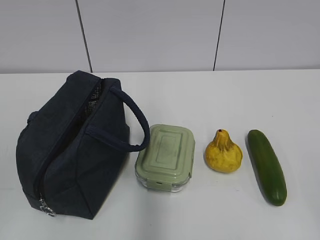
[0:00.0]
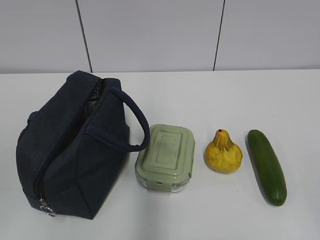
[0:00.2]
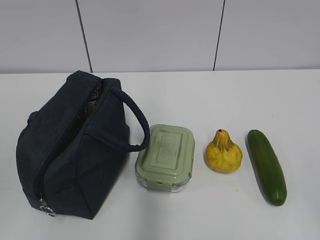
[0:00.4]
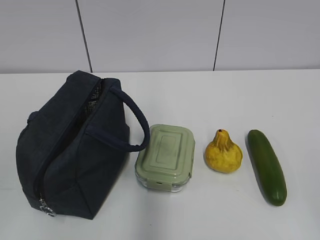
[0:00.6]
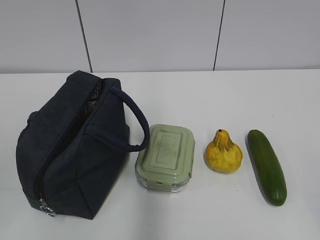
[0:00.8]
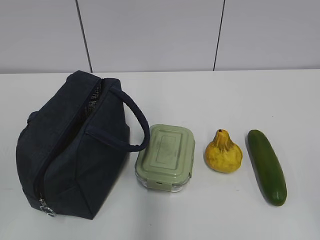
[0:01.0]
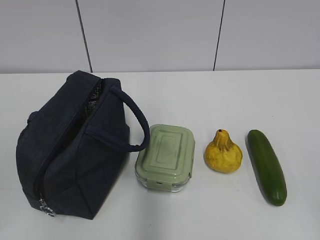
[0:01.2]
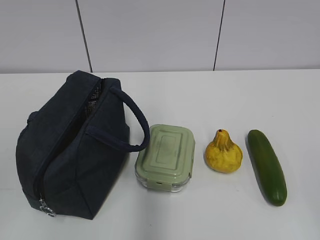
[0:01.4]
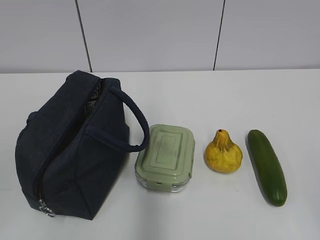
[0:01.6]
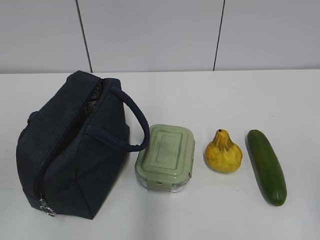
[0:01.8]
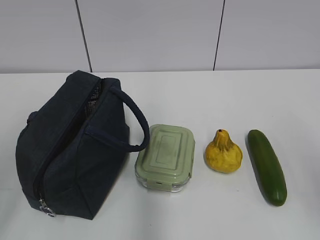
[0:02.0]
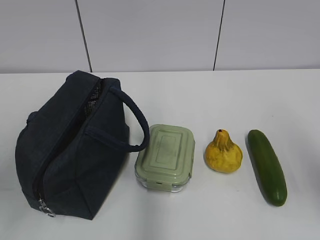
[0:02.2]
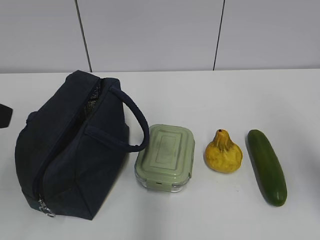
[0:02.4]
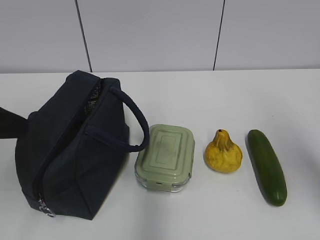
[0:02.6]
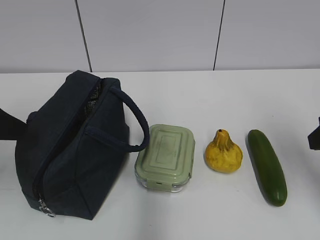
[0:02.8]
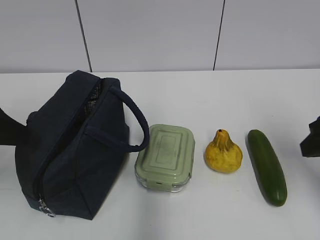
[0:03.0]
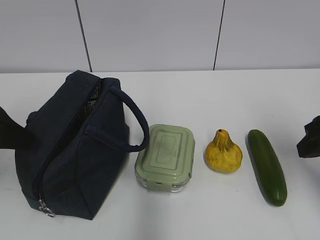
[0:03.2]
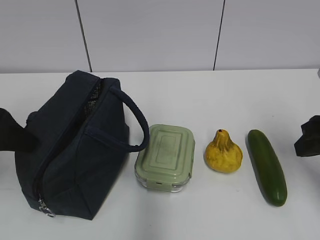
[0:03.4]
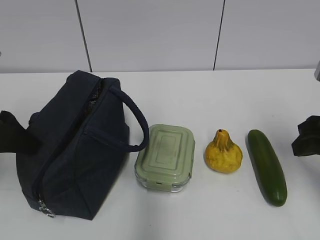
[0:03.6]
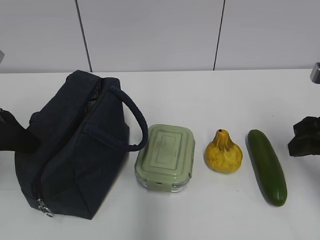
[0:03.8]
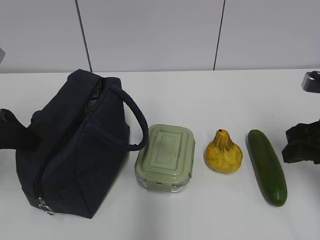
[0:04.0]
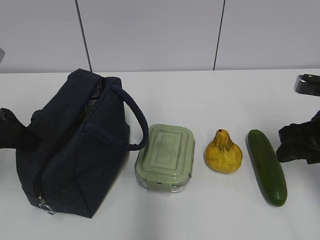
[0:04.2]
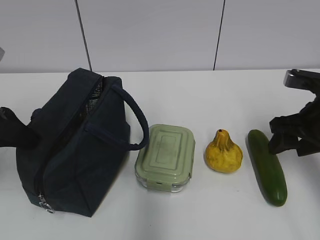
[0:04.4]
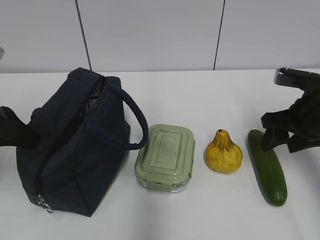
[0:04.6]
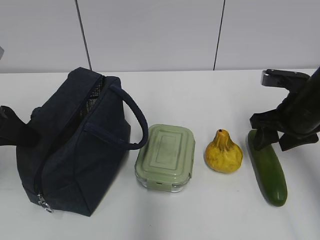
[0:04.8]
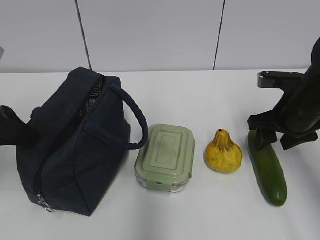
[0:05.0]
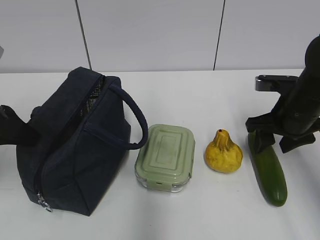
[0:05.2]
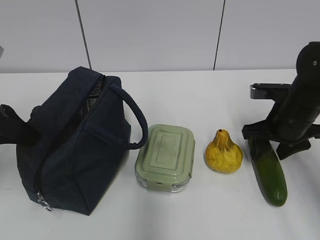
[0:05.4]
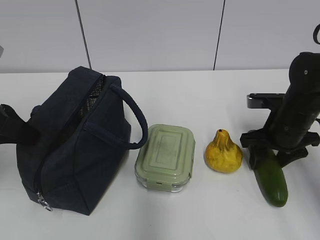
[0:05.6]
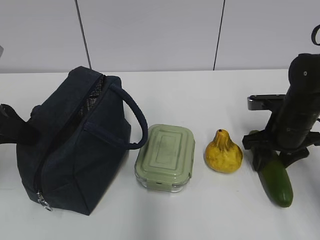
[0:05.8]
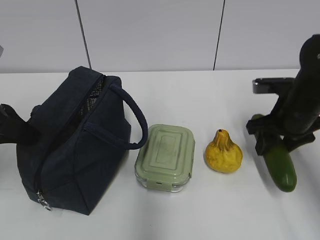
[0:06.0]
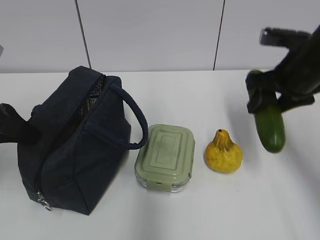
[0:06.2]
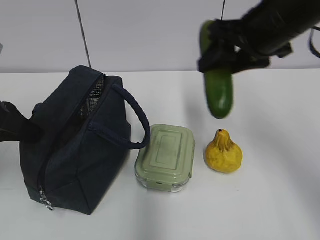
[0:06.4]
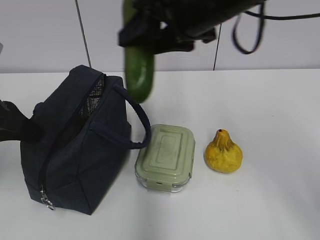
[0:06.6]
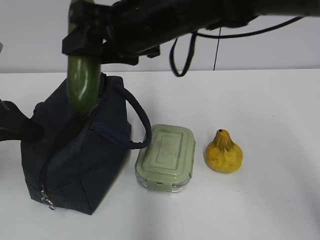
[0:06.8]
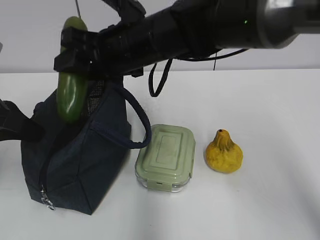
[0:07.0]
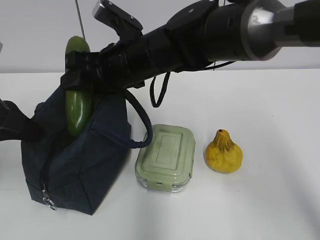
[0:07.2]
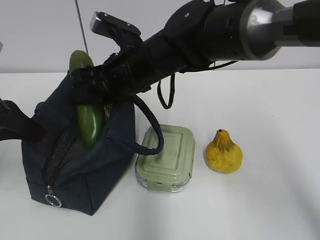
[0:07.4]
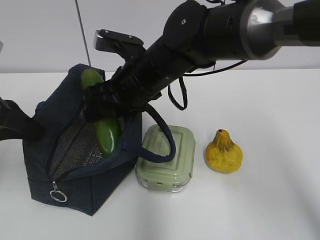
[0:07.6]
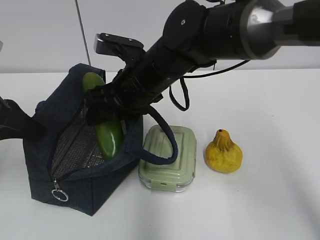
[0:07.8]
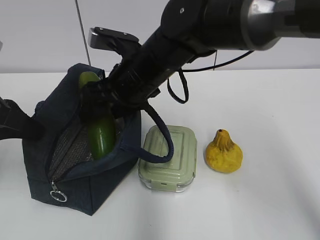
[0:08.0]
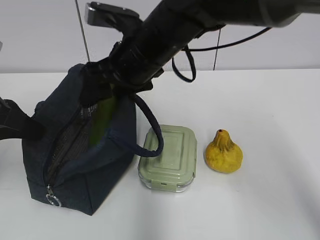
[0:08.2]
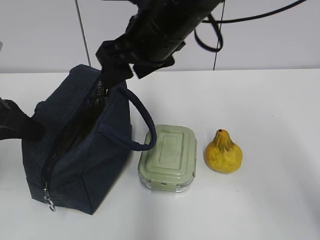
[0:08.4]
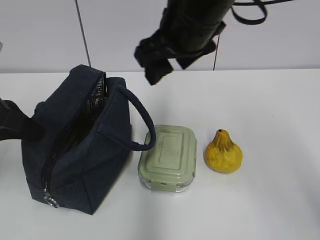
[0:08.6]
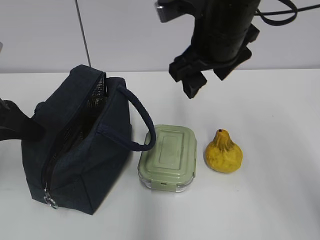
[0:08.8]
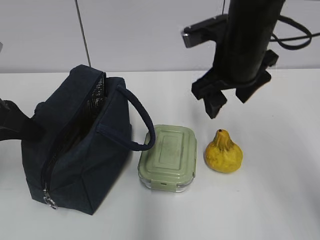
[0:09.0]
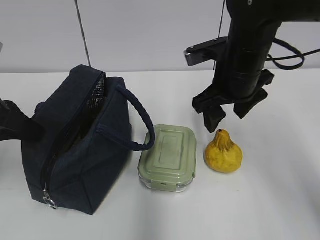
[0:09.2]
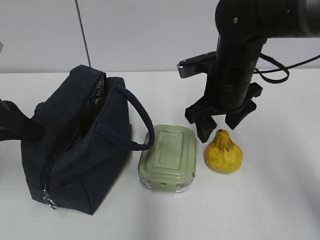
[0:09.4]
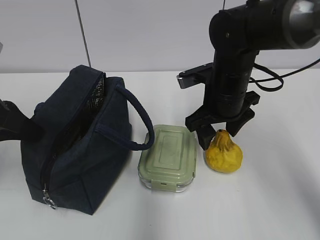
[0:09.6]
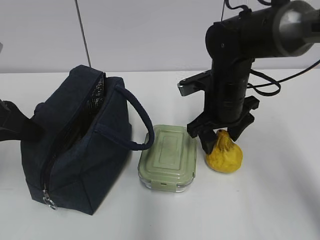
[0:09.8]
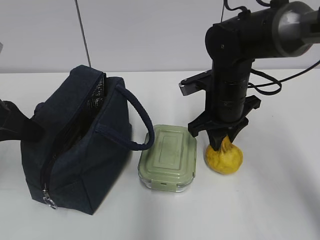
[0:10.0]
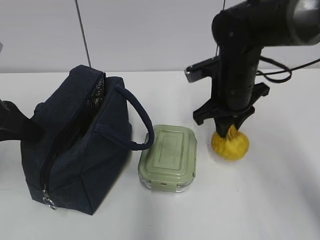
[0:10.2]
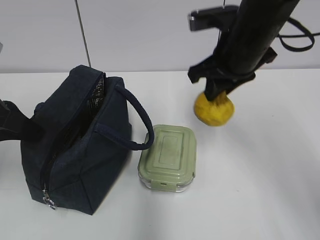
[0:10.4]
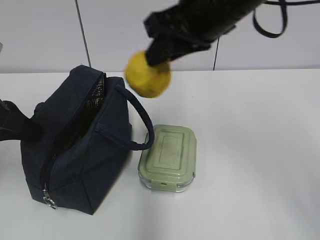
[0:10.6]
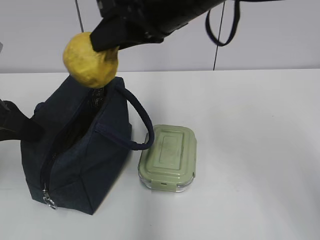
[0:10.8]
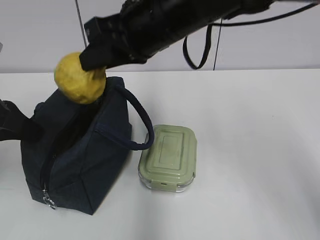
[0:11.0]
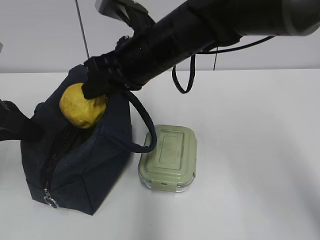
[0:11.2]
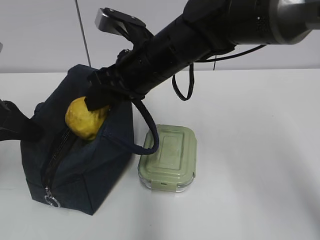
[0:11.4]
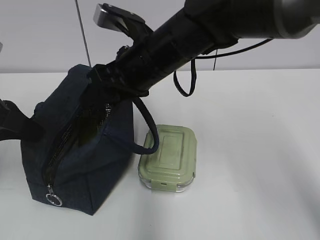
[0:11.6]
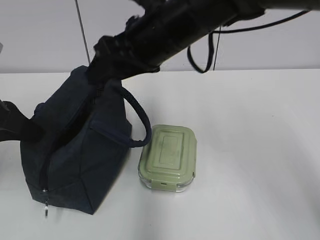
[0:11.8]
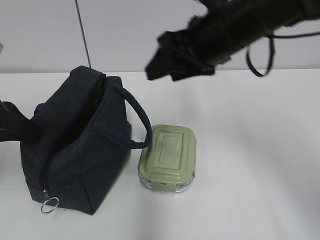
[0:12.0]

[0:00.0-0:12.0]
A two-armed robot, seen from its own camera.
0:01.6 to 0:03.0: The two grippers go approximately 20 cm forward.
0:03.0 to 0:04.4: The right gripper heads forward and downward, covering approximately 10 cm, while the left gripper closes its fingers.
0:06.0 to 0:07.6: The right gripper goes about 25 cm to the left.
0:07.6 to 0:09.0: The right gripper heads to the right, covering approximately 15 cm.
0:09.0 to 0:10.4: The right gripper goes downward and returns, roughly 10 cm each way, and closes up.
0:10.4 to 0:12.0: The right gripper travels to the left and back again, some 10 cm each way, and opens its fingers.

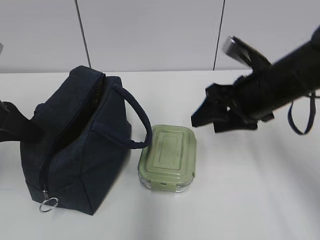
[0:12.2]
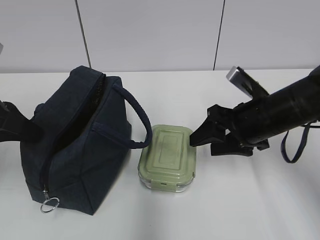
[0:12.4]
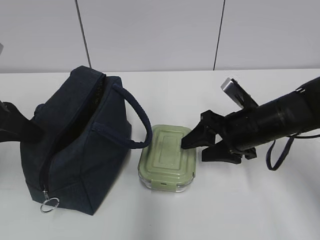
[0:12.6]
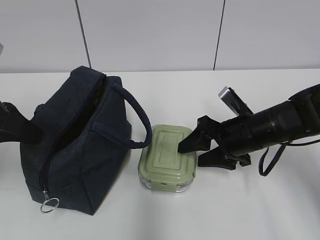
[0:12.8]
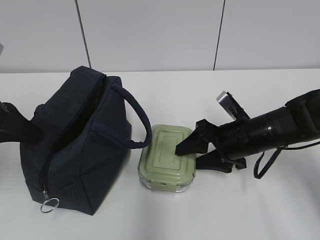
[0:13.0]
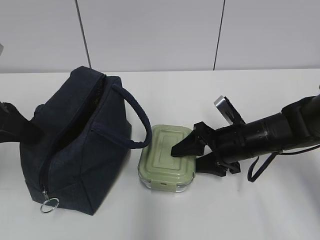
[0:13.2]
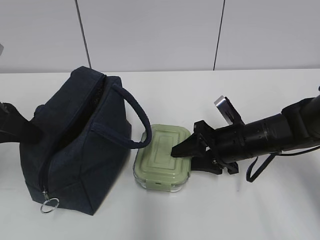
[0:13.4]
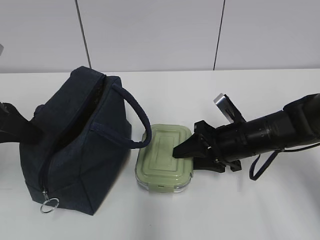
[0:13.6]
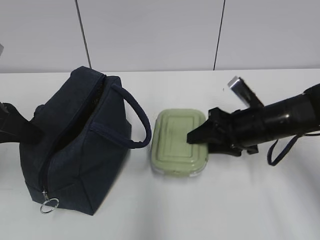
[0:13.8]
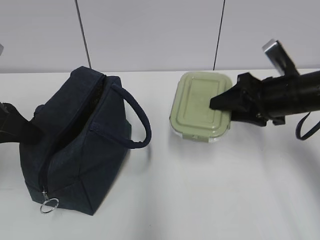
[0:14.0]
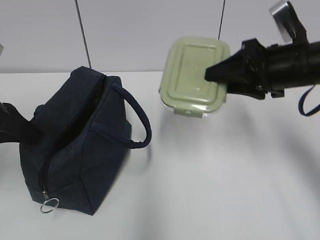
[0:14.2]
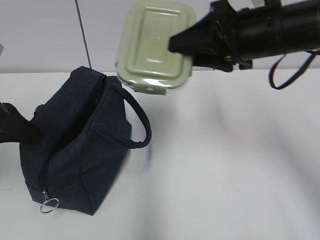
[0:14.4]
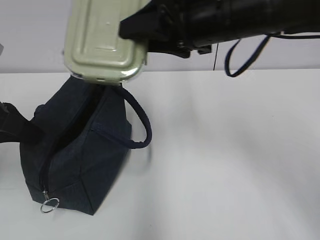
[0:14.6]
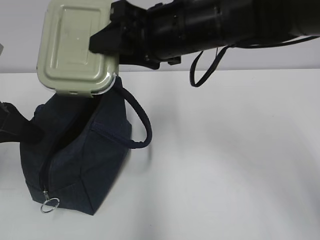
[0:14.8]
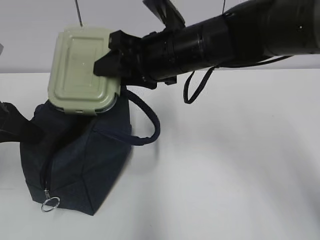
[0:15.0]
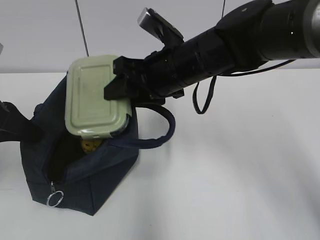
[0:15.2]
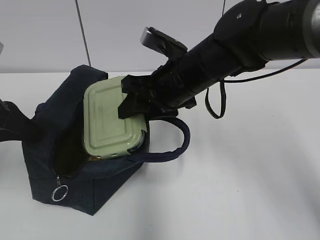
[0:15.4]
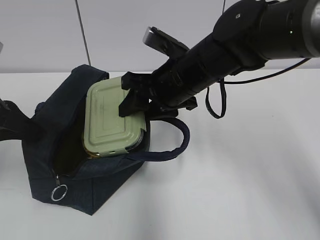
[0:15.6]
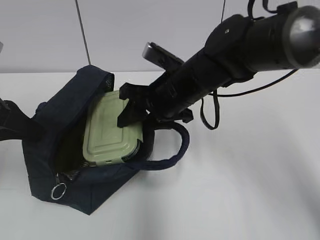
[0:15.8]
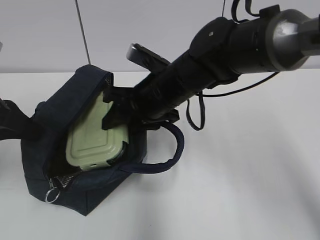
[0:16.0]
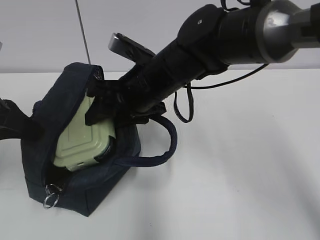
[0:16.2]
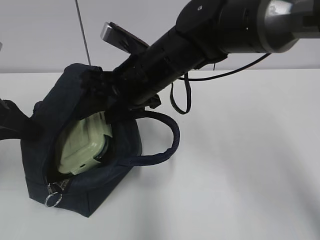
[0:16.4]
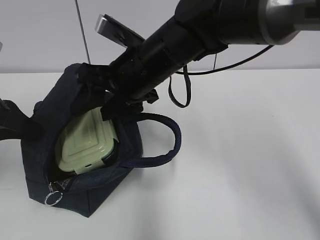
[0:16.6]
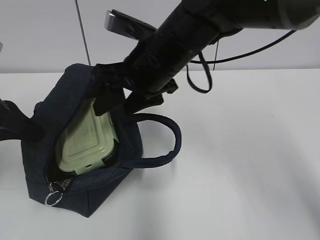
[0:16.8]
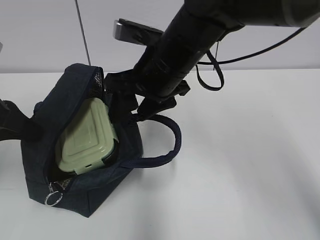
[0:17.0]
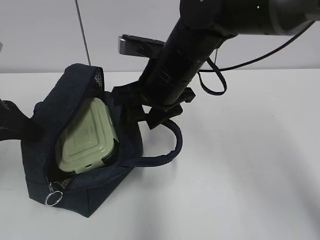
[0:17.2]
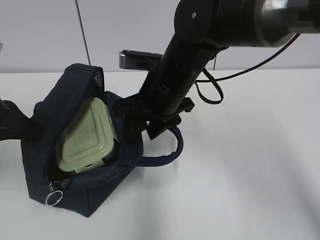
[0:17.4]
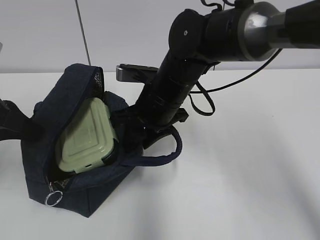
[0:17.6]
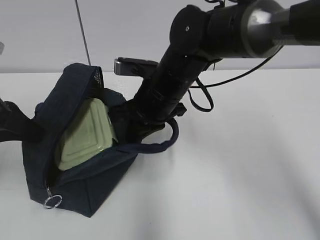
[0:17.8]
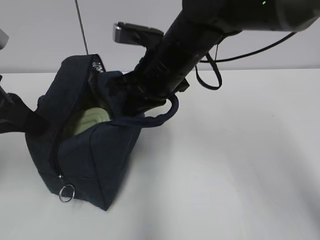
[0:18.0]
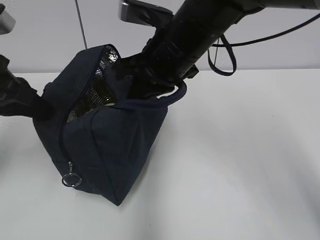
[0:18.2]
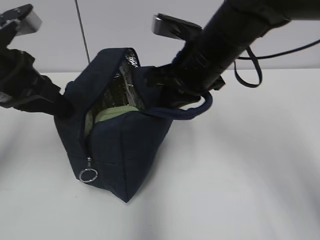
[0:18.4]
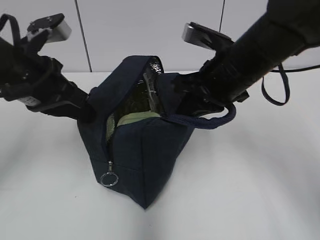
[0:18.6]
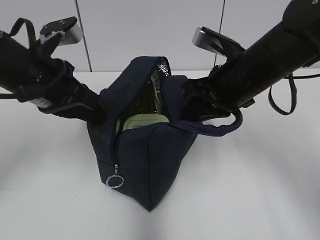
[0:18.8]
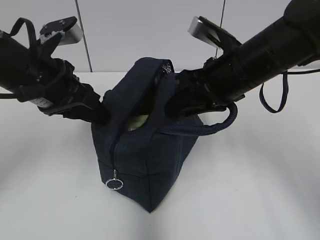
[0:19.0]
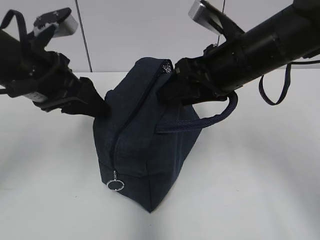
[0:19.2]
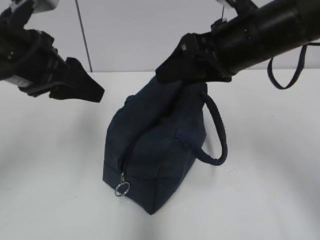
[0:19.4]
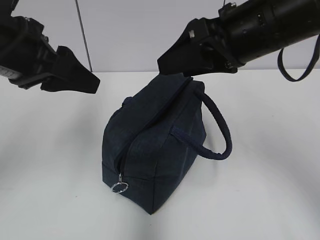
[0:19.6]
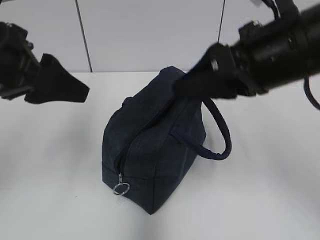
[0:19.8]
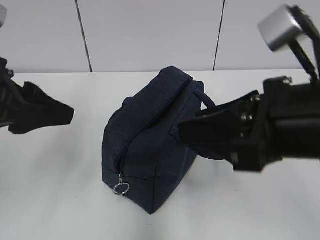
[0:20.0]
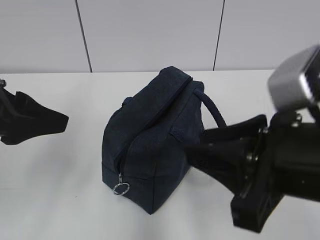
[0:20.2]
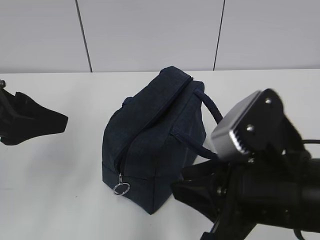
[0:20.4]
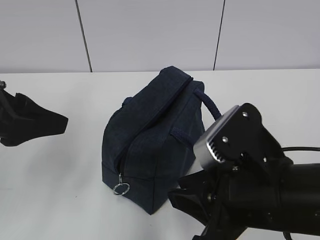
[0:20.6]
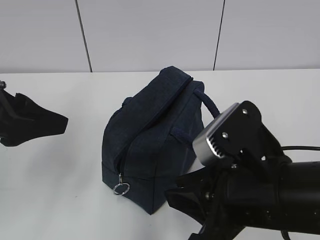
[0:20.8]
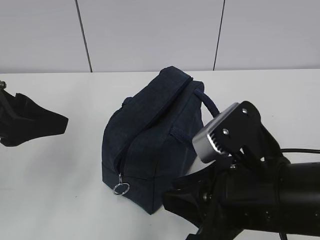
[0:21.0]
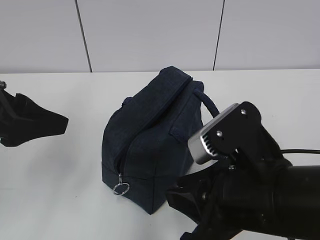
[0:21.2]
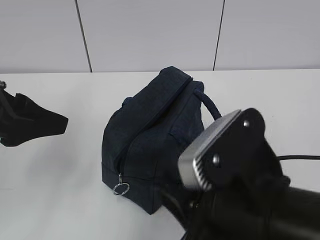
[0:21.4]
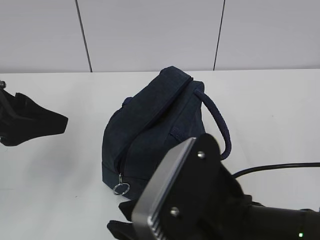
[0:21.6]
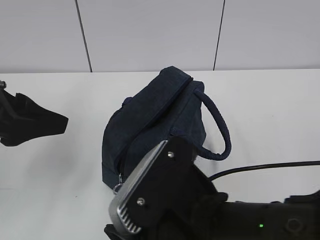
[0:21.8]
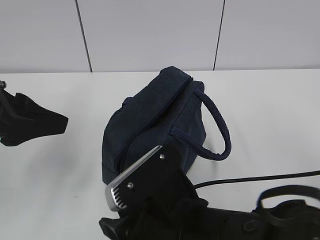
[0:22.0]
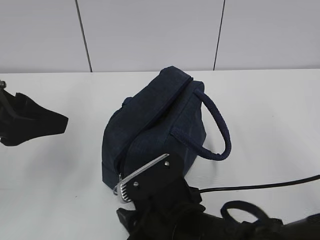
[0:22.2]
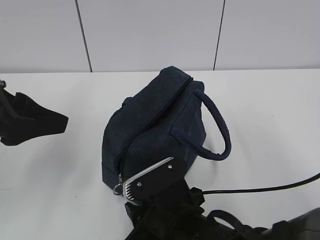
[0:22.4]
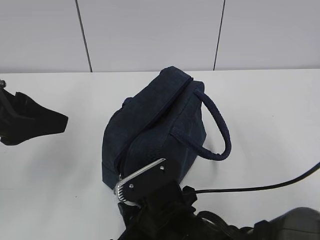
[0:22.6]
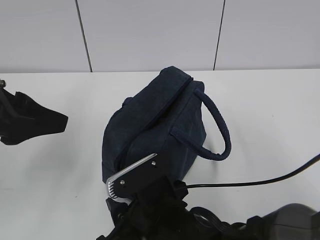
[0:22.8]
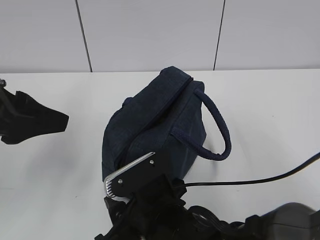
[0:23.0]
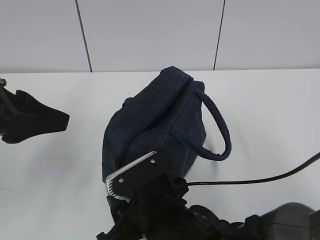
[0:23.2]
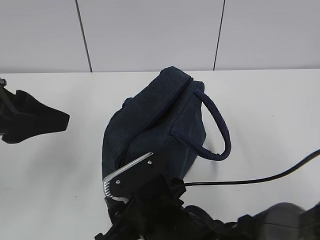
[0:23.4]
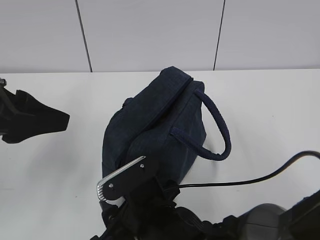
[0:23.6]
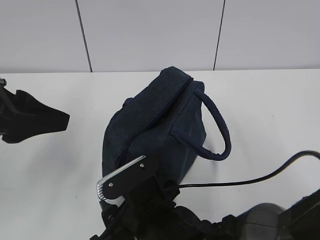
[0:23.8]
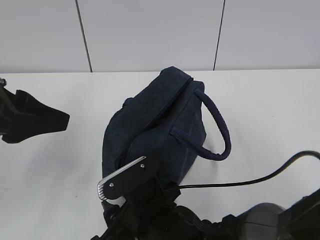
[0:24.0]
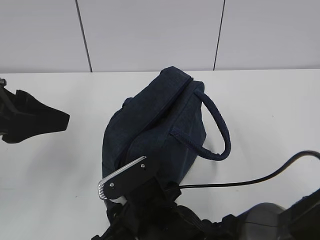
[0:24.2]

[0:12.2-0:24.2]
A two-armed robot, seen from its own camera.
0:13.8 to 0:15.2: The right gripper heads to the left and upward, covering roughly 15 cm.
0:16.6 to 0:18.2: The right gripper travels downward and back again, roughly 5 cm each way, and closes up.
0:18.2 to 0:19.8: The left gripper changes place by approximately 5 cm, and opens; the right gripper is displaced backward and to the right by some 15 cm, and opens its fingers.
0:19.8 to 0:21.2: The right gripper travels downward and backward by approximately 10 cm.
0:21.2 to 0:22.6: The right gripper heads downward and to the left, covering some 15 cm.
0:22.6 to 0:24.2: There are only small adjustments of the grippers.
